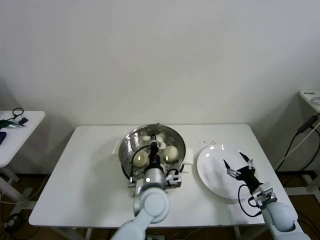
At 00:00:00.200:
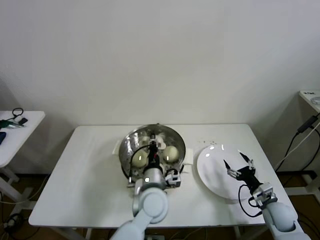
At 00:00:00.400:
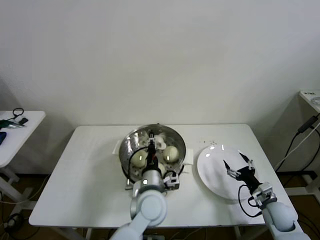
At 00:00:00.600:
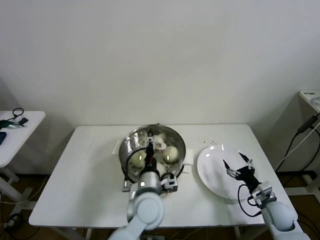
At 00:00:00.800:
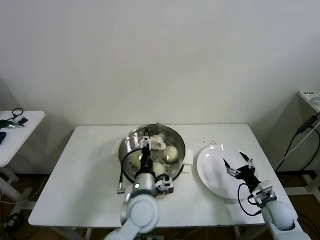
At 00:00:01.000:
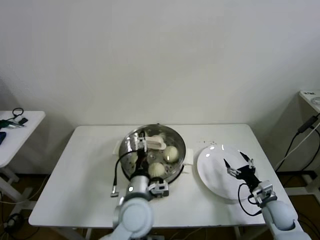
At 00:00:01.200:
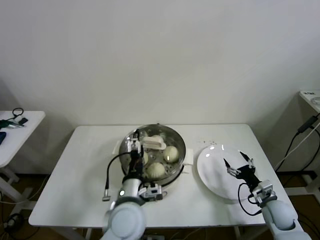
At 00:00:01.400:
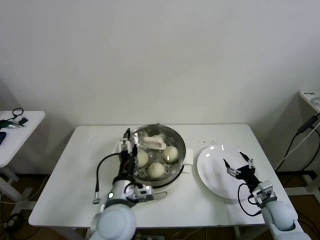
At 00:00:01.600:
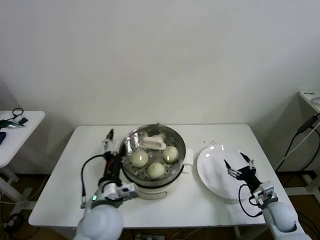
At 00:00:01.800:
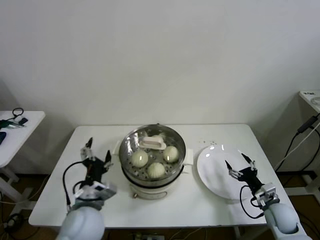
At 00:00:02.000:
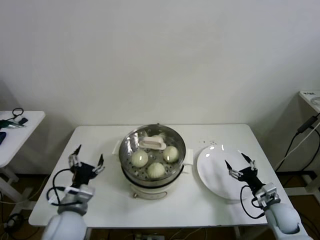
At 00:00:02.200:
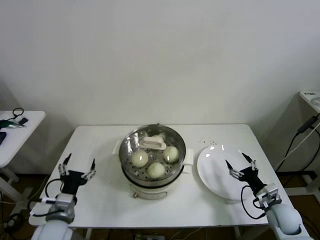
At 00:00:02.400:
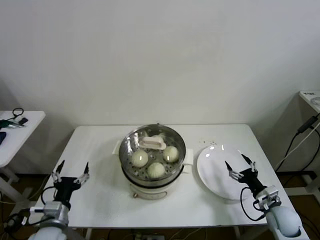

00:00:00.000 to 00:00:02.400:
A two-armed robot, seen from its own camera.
00:00:00.000 to 00:00:01.200: The left gripper heads to the left and backward, covering some 10 cm, and opens up.
00:00:01.200 to 00:00:02.400: The left gripper heads to the left, covering some 25 cm.
